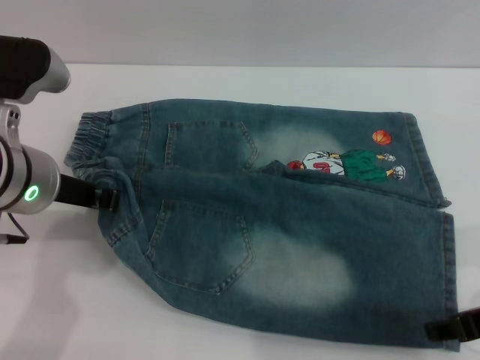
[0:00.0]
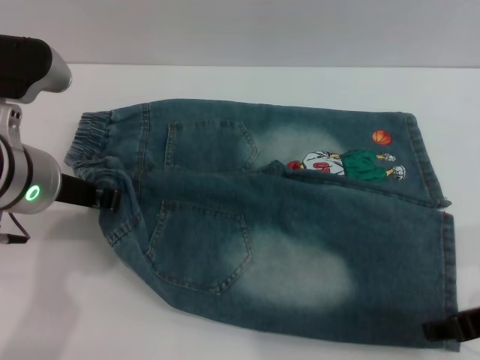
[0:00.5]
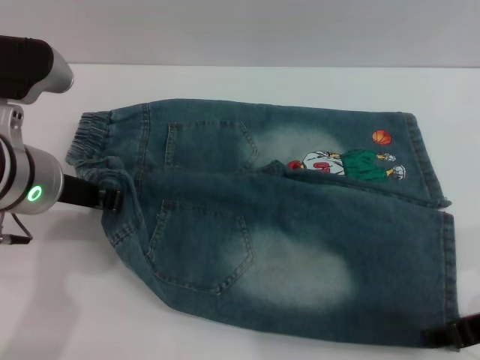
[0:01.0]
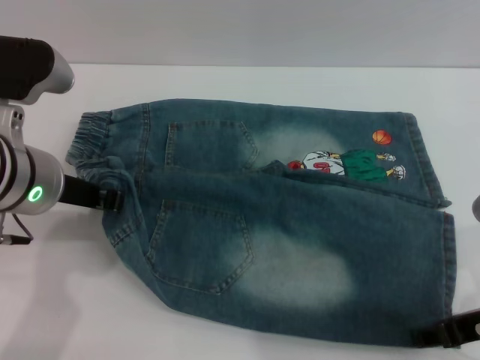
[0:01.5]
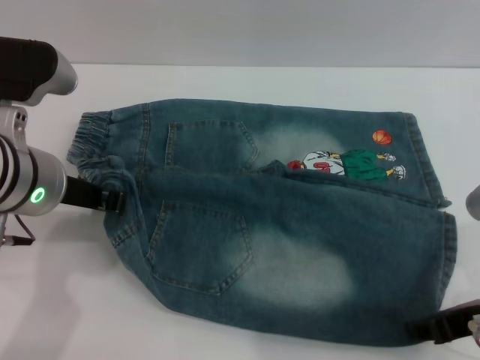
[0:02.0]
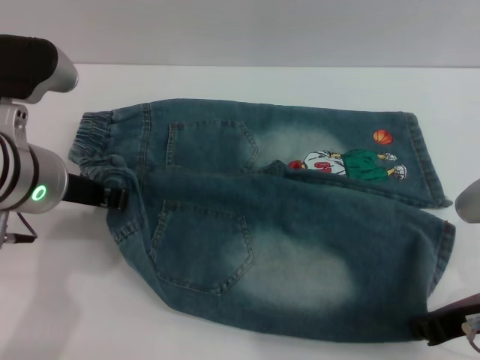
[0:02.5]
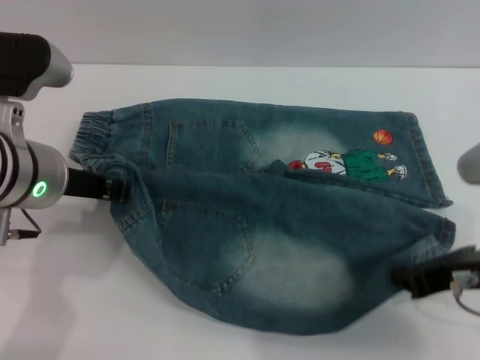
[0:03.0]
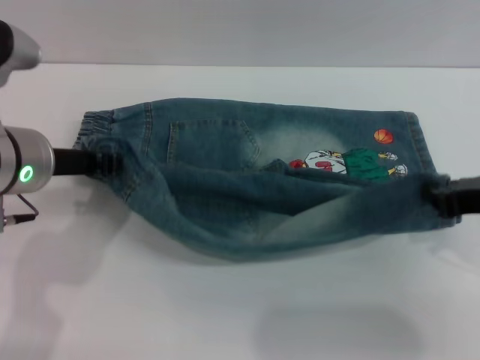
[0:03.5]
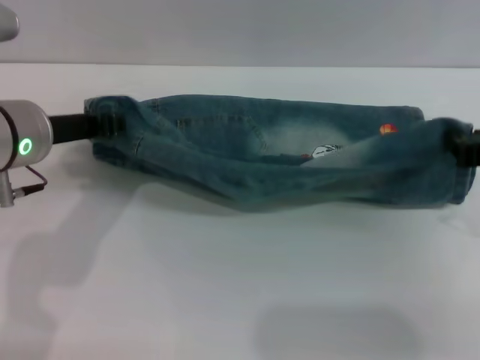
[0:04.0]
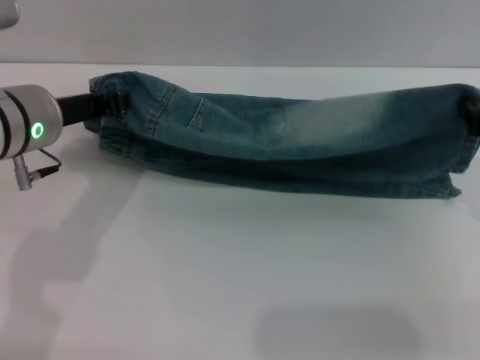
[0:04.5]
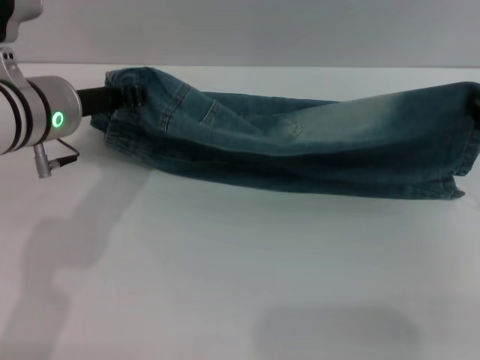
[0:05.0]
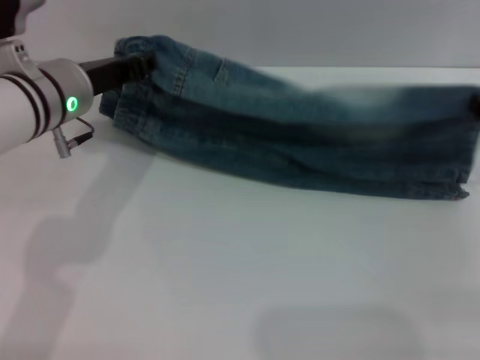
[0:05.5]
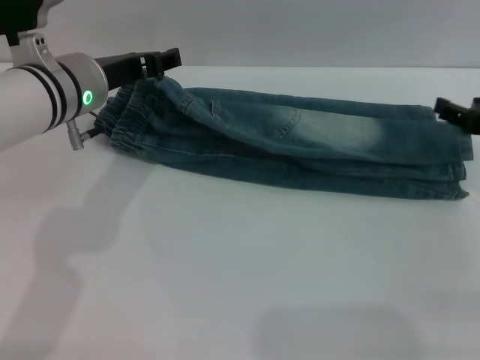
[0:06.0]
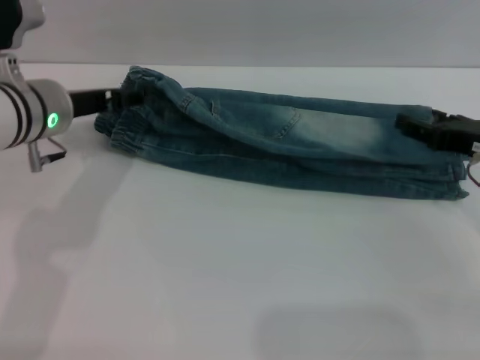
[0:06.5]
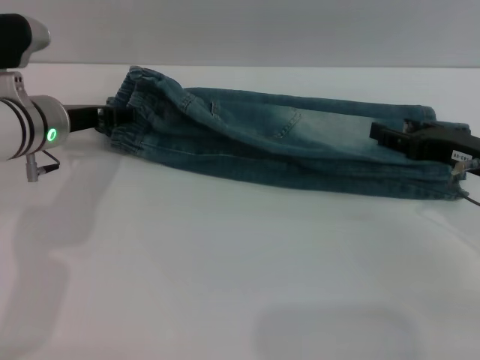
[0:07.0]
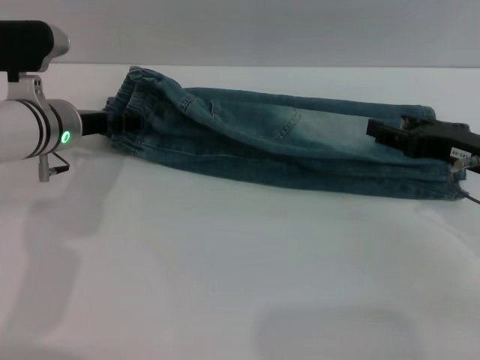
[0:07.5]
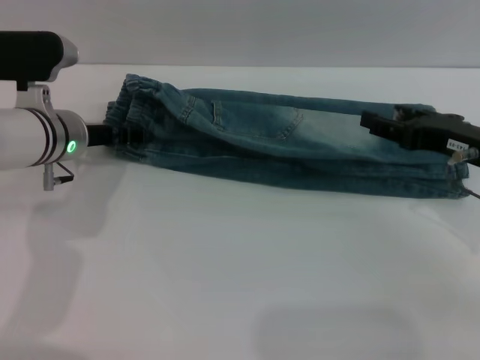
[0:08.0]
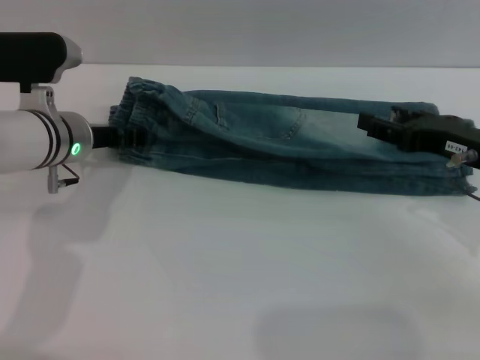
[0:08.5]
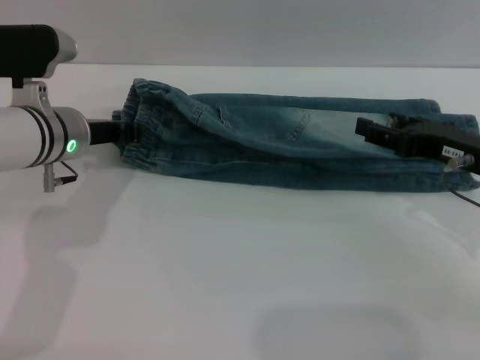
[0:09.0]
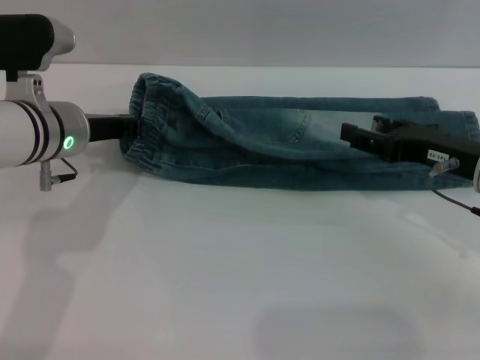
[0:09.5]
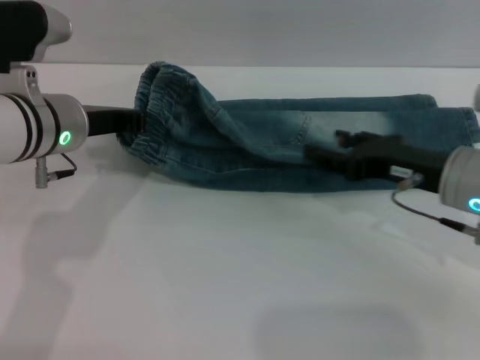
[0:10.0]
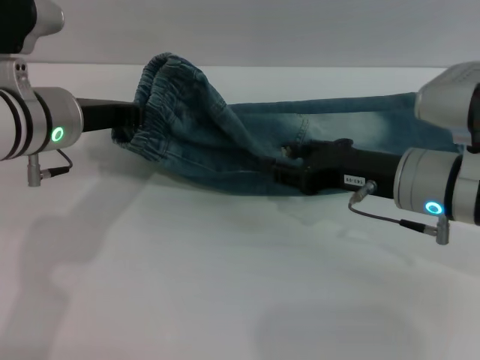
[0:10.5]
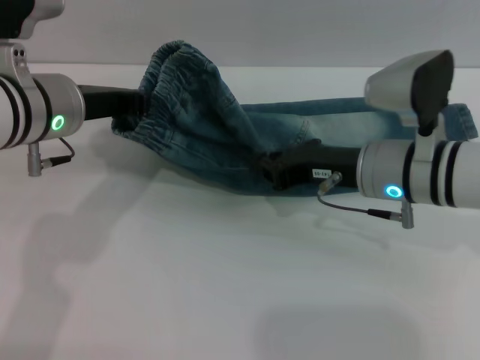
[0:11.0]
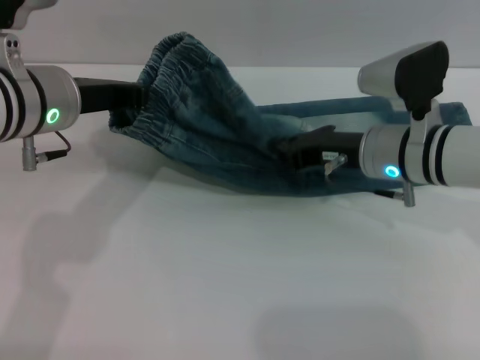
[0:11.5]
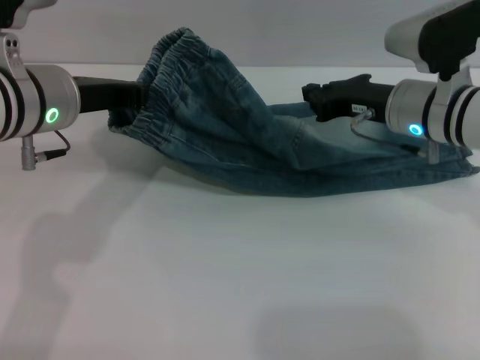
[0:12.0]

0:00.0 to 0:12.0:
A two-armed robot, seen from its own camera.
Step, 0:00.0 to 0:05.5: Fold the bottom of the pants upward with both grippers.
0:00.0 to 0:02.0: The grippers move only a little.
0:02.0 to 0:04.0: The right gripper goes roughly 5 cm forward, and closes up.
0:04.0 to 0:06.0: The right gripper goes some 5 cm downward, and opens its fingers. The left gripper goes about 5 cm forward, and opens.
0:06.0 to 0:08.0: The left gripper is displaced downward by some 5 cm.
0:08.0 to 0:10.0: The left gripper is displaced upward by some 5 cm, and closes its fingers.
0:10.0 to 0:12.0: The right gripper heads forward, covering roughly 10 cm, and closes up.

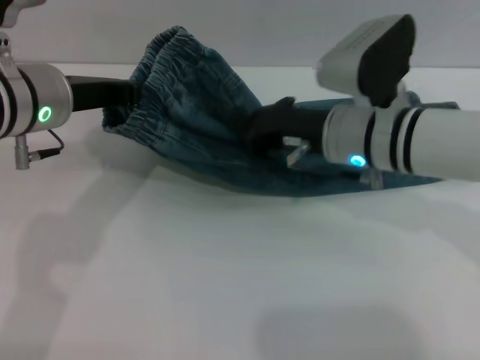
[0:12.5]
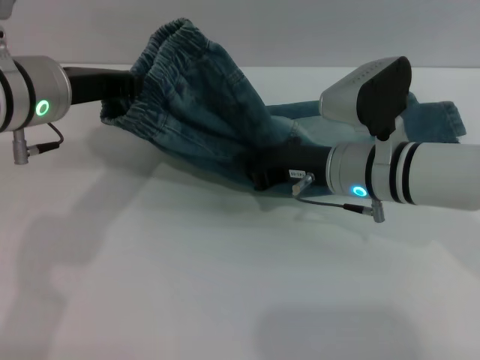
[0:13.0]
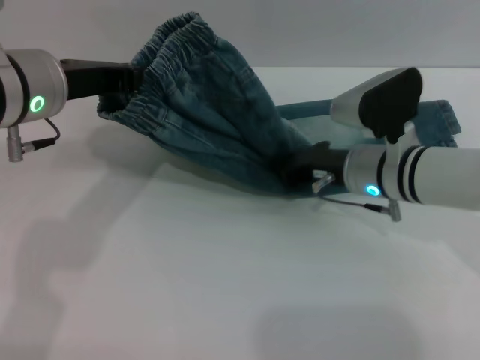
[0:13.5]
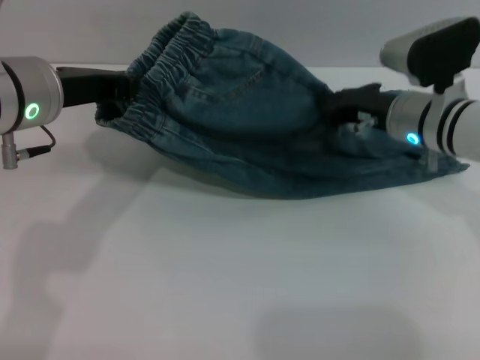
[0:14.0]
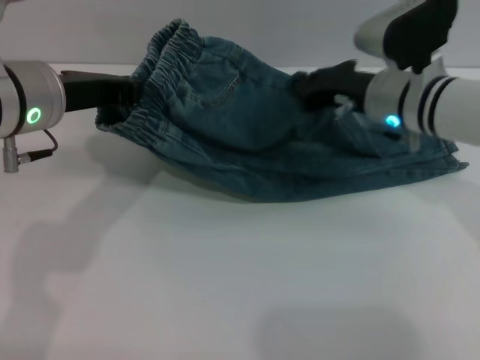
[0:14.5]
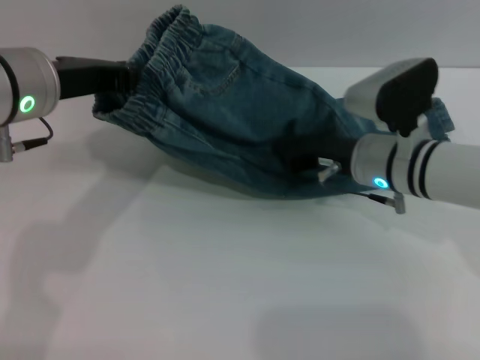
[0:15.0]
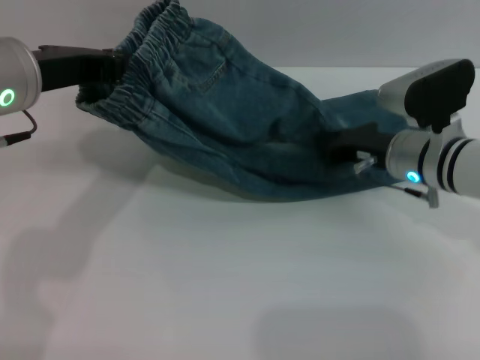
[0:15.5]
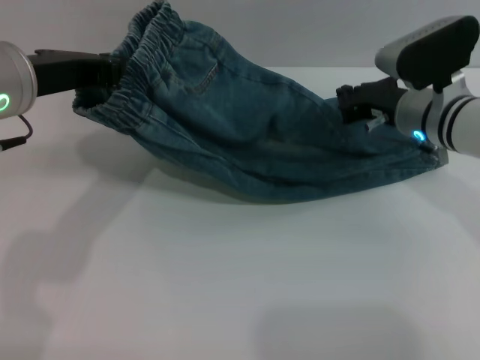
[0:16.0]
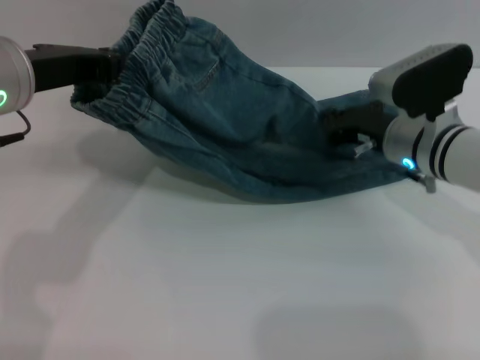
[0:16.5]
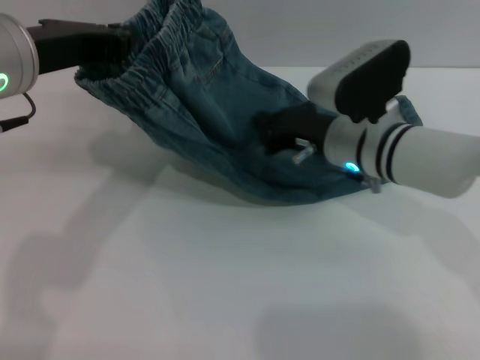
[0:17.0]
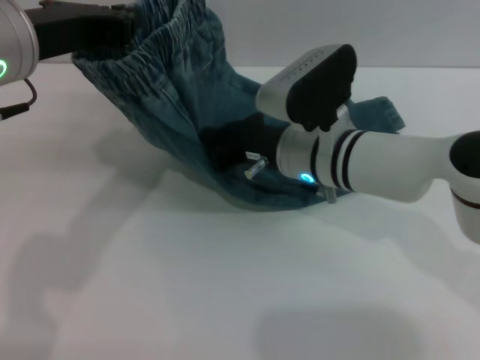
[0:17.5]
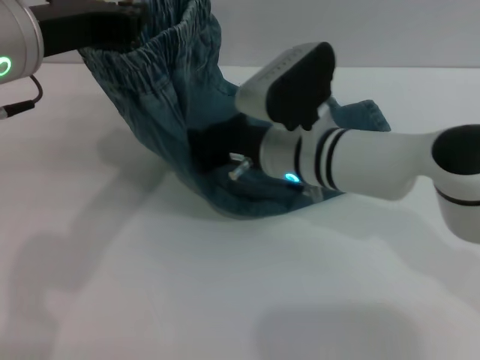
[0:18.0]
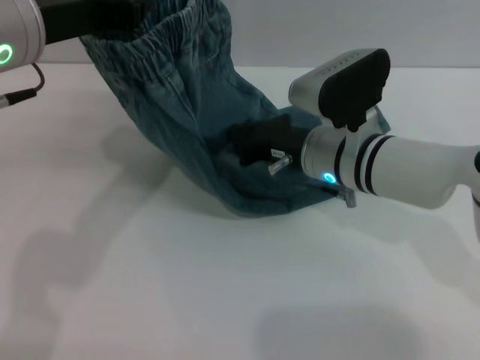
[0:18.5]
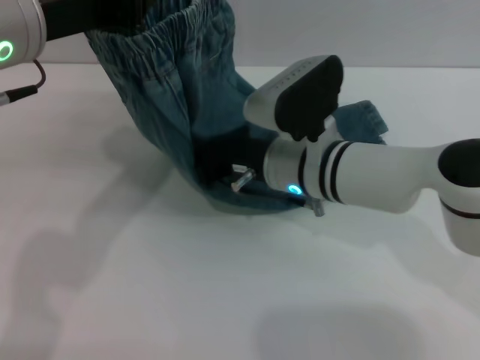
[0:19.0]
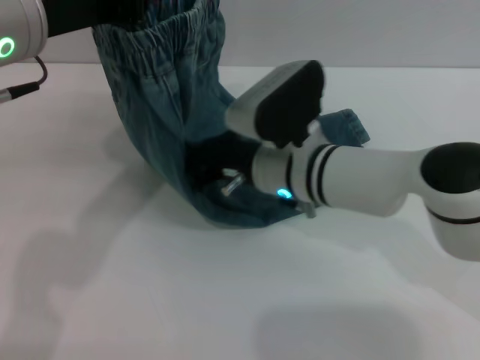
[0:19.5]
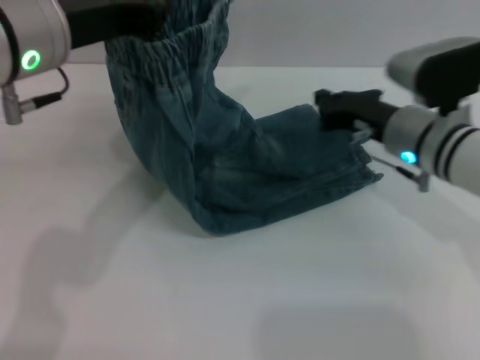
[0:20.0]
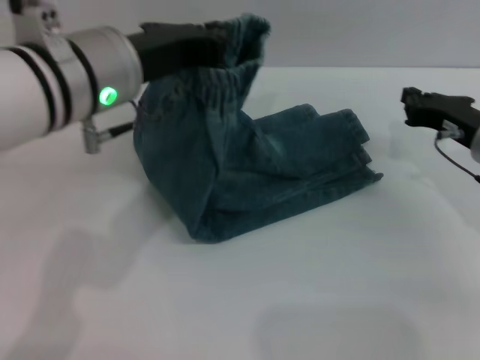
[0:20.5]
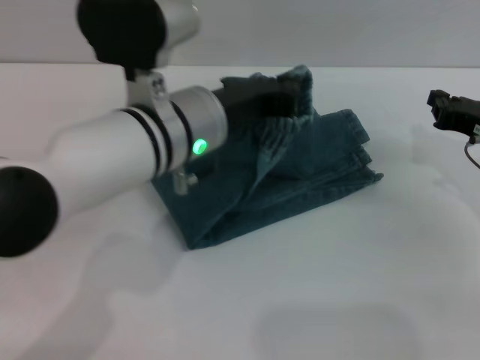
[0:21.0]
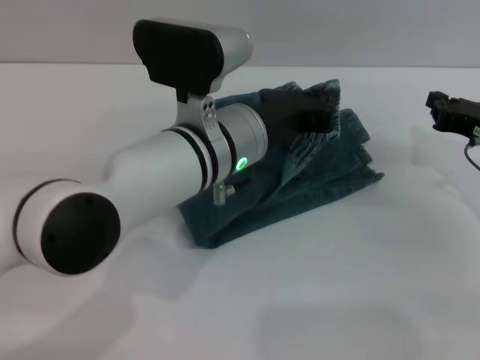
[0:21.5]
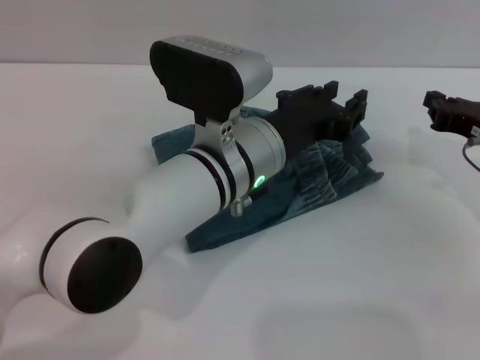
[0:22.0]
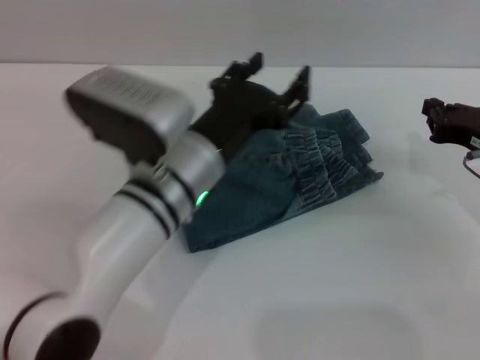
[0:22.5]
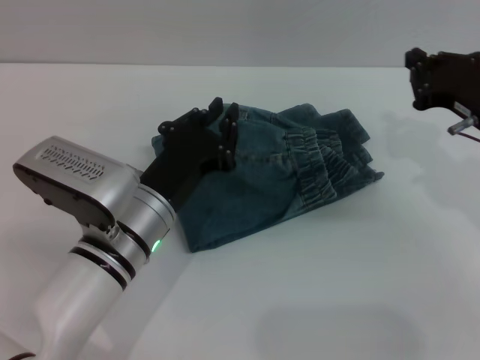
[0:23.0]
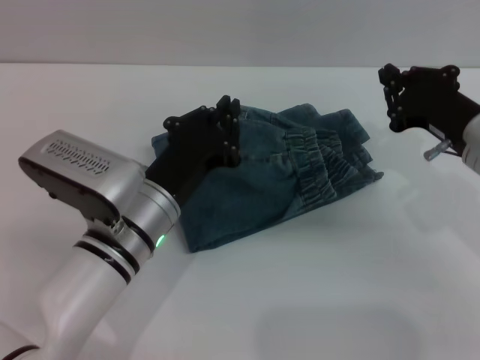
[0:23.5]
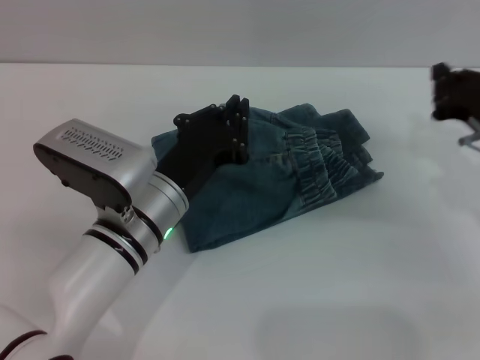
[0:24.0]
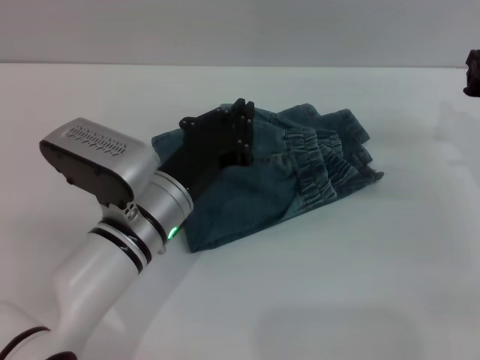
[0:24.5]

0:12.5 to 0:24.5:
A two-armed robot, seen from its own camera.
Step, 0:12.5 to 0:22.0: Fold the pants from left to right with the left gripper.
0:12.5 to 0:14.5: The right gripper goes roughly 5 cm forward.
0:14.5 to 0:16.5: The right gripper shifts by roughly 5 cm.
0:16.5 to 0:18.5: The right gripper shifts some 10 cm to the left.
0:18.5 to 0:20.5: The left gripper heads downward, covering about 5 cm. Meanwhile the right gripper shifts approximately 15 cm to the right.
0:20.5 to 0:22.5: The left gripper shifts about 15 cm downward and to the right, and opens.
0:22.5 to 0:24.5: The left gripper heads downward, covering roughly 5 cm, and closes its fingers.

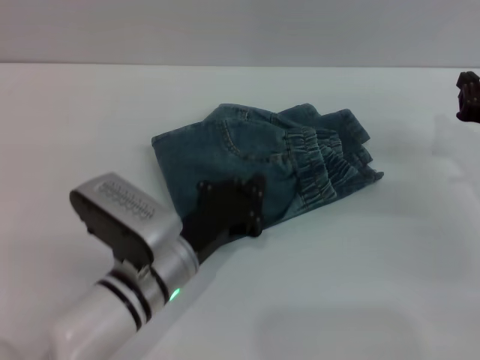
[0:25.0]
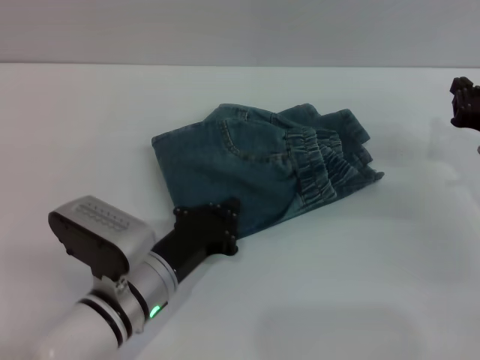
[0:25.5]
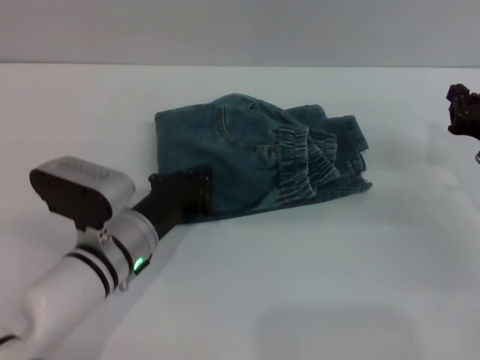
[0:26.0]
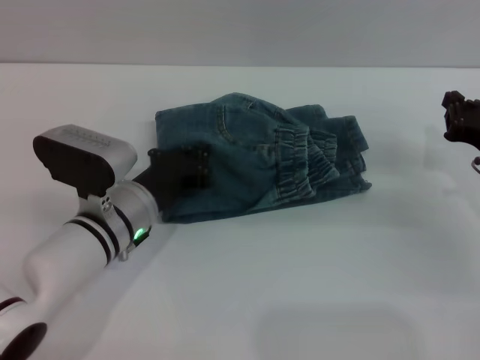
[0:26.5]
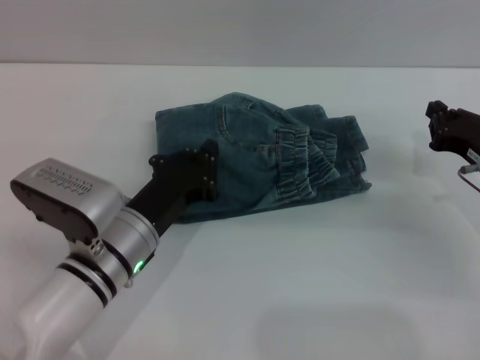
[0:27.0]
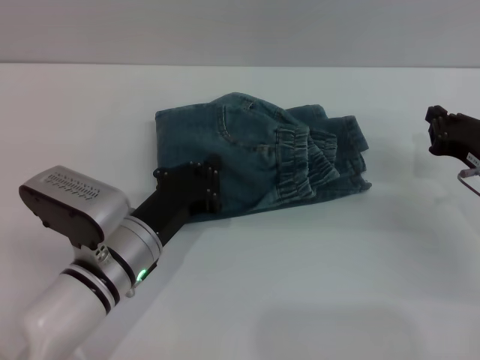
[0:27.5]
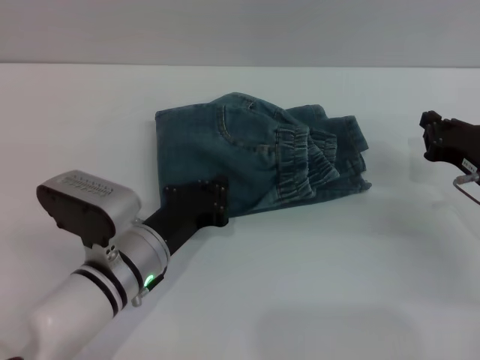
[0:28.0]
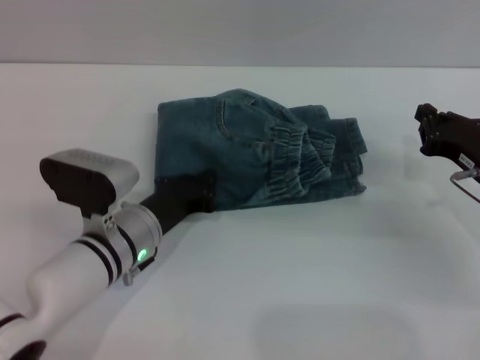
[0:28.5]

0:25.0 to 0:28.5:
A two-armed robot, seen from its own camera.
0:25.0 to 0:27.0: The left gripper moves some 5 cm forward and comes back.
0:27.0 to 0:28.5: The grippers move only a little.
